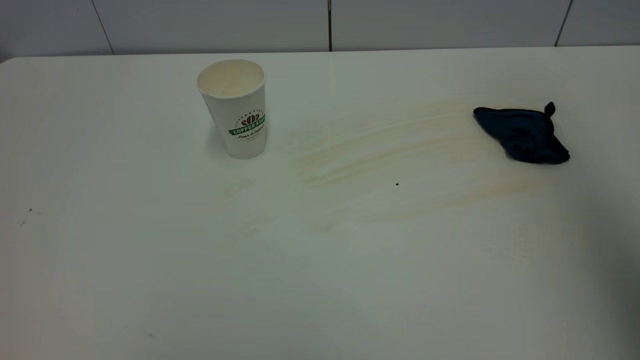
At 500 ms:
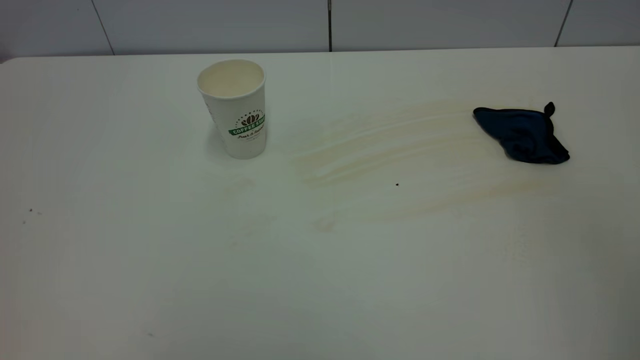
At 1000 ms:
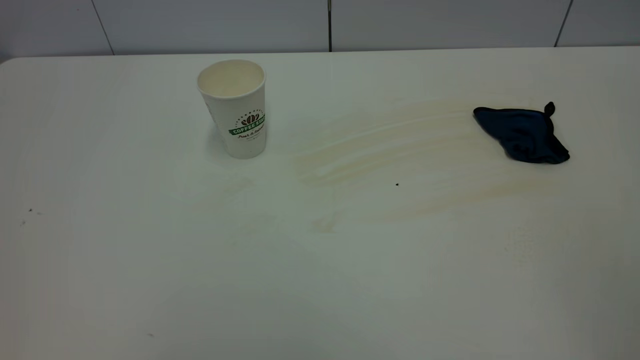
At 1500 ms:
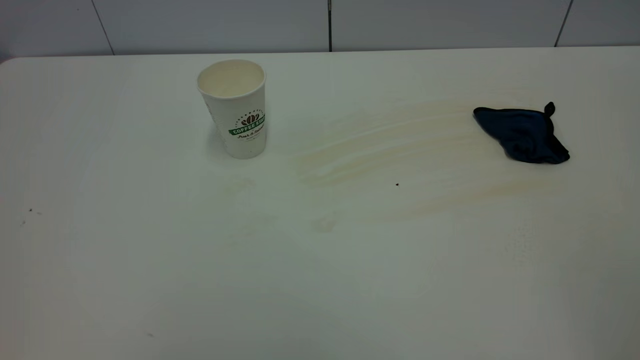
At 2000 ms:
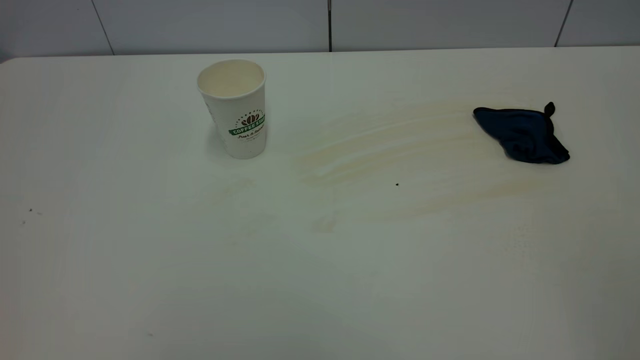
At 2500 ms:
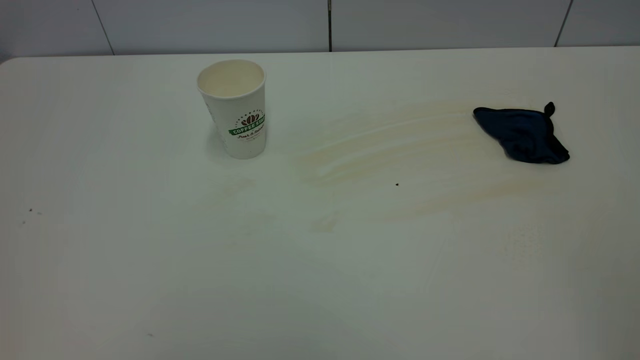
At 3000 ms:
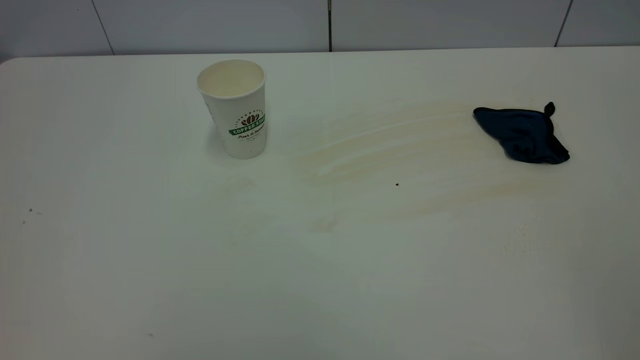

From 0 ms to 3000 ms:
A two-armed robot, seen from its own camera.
Task of the whole recording: the left gripper pick up the fallen cup and place it upright, the right gripper grasp the blue rag and wipe the tea stain on the table, the right gripper put the blue rag back in its original position.
From 0 ms to 1500 ms: The right gripper is displaced backward and downward by about 25 cm.

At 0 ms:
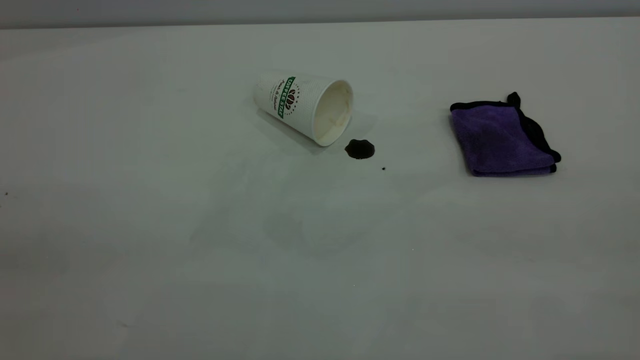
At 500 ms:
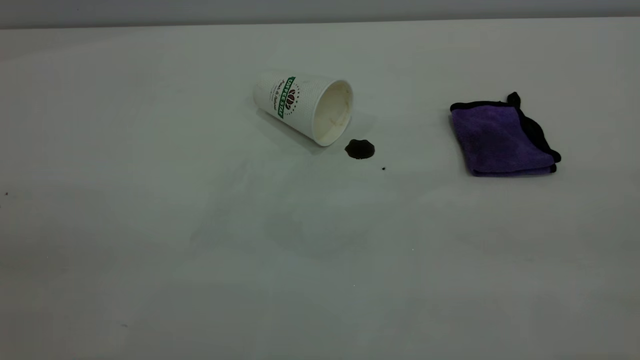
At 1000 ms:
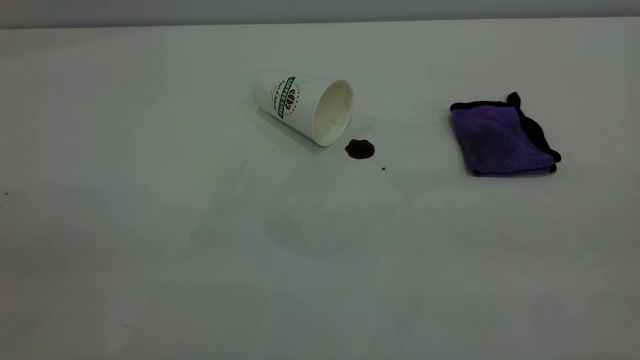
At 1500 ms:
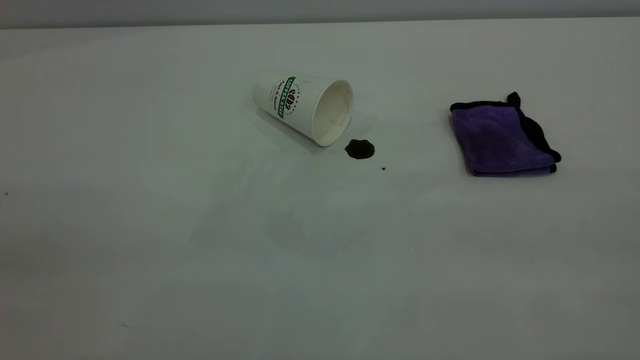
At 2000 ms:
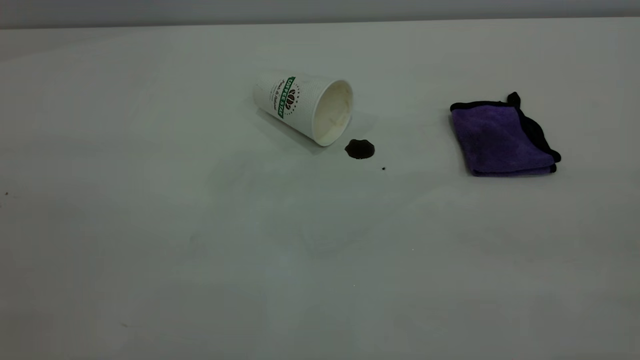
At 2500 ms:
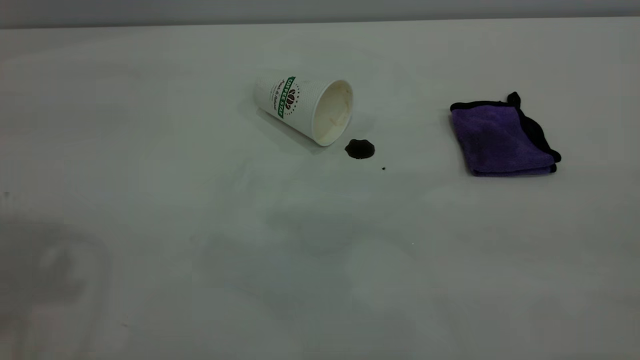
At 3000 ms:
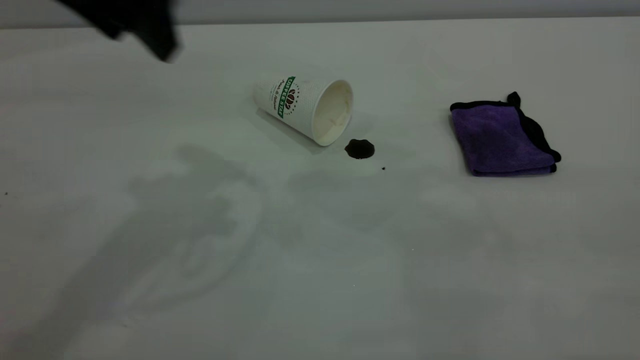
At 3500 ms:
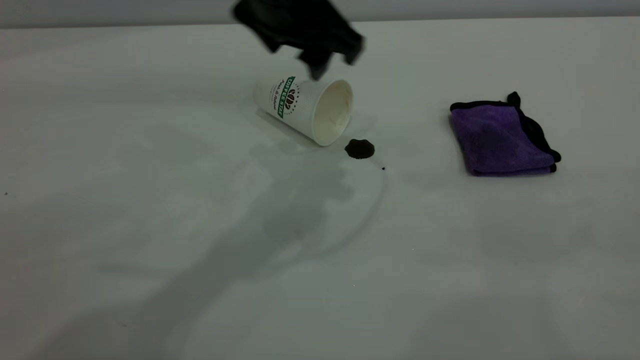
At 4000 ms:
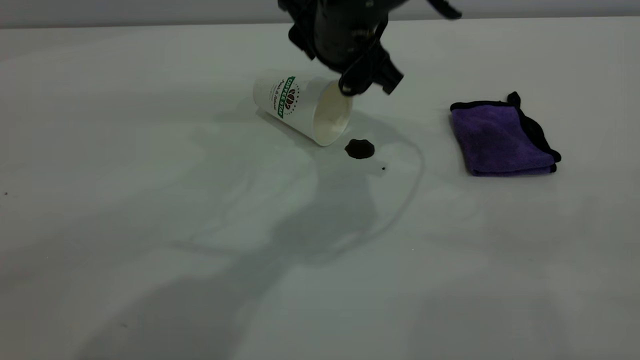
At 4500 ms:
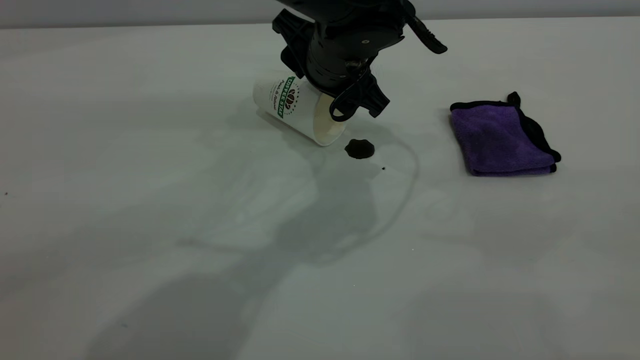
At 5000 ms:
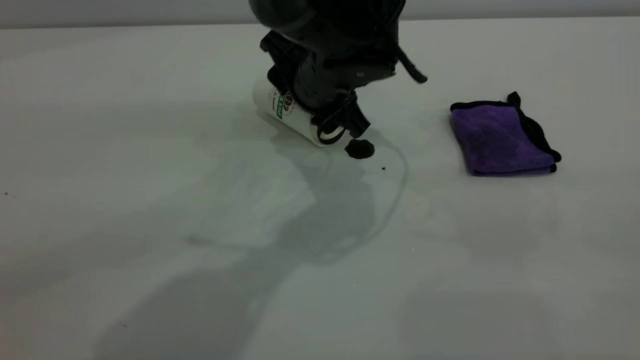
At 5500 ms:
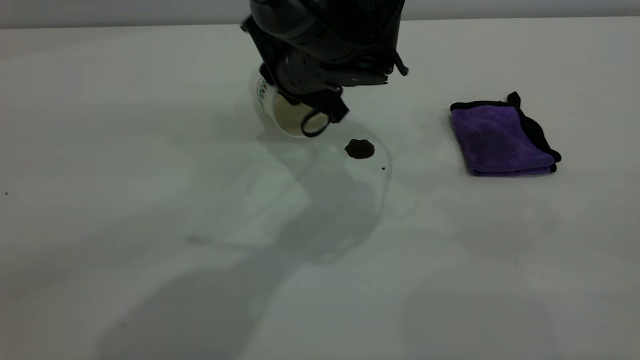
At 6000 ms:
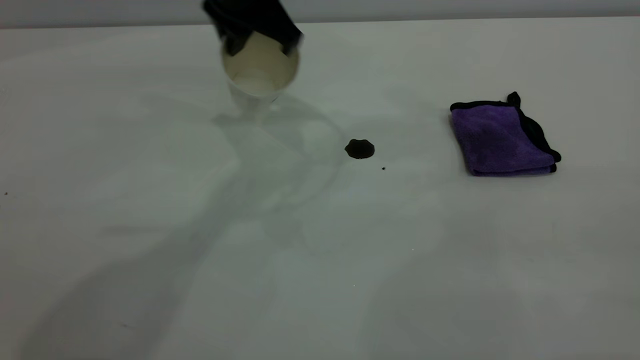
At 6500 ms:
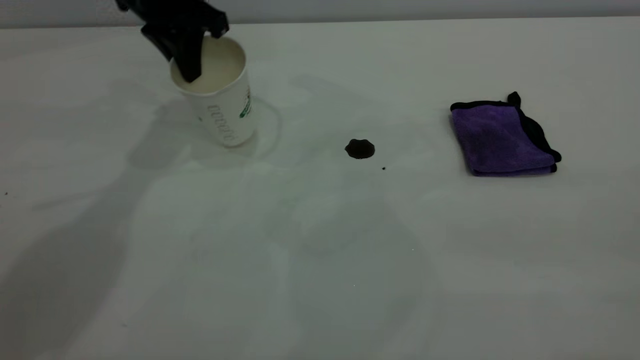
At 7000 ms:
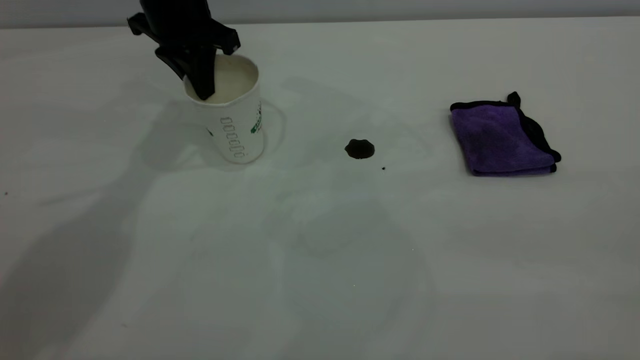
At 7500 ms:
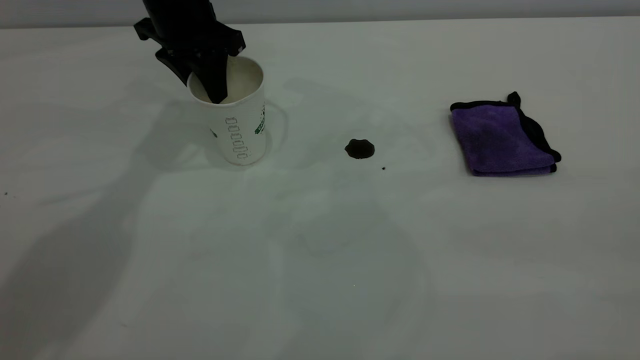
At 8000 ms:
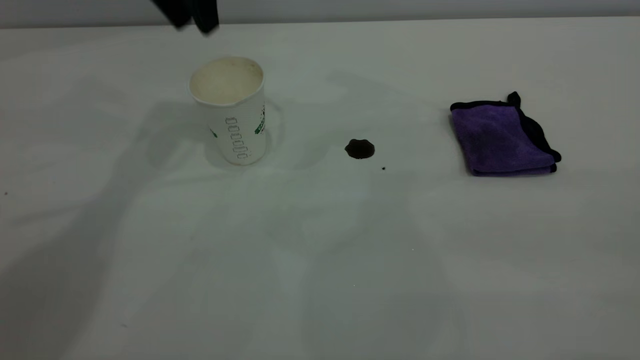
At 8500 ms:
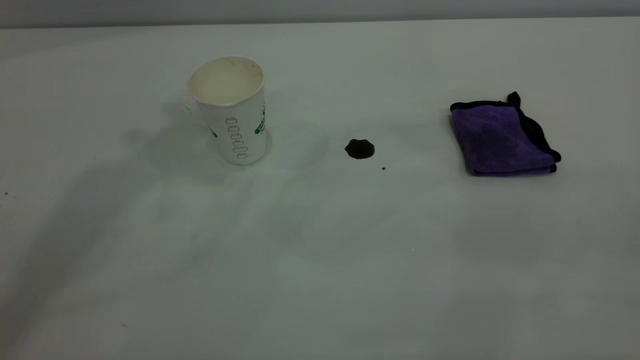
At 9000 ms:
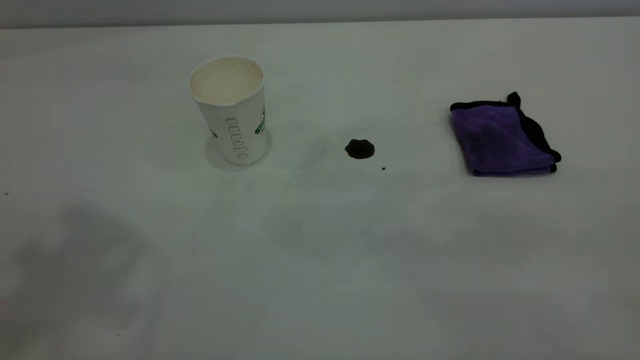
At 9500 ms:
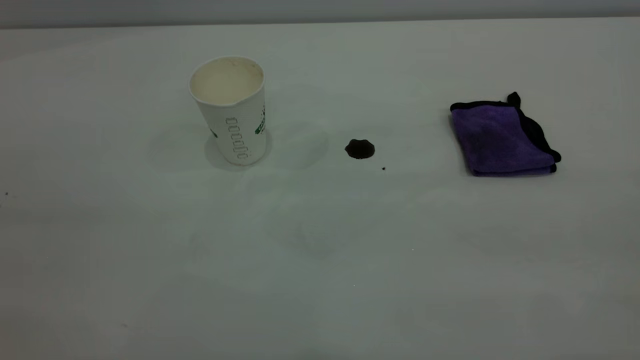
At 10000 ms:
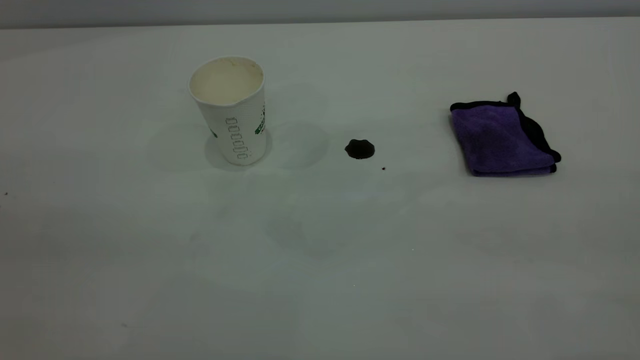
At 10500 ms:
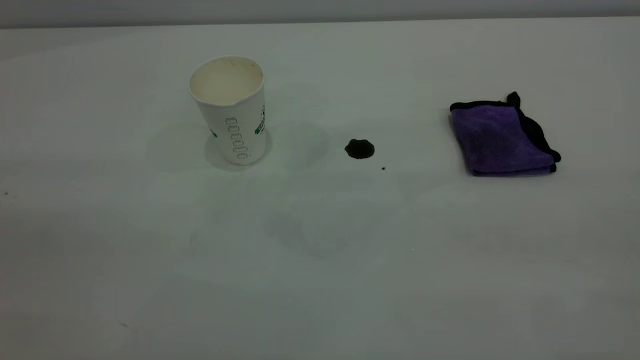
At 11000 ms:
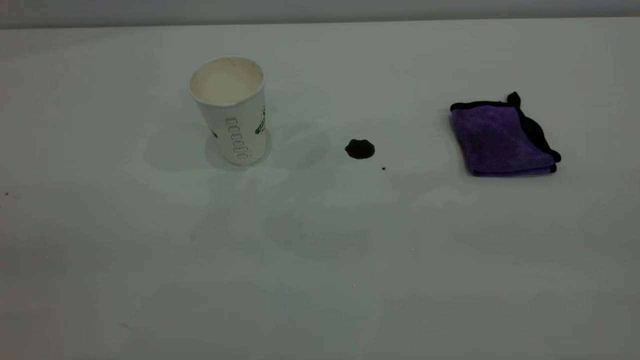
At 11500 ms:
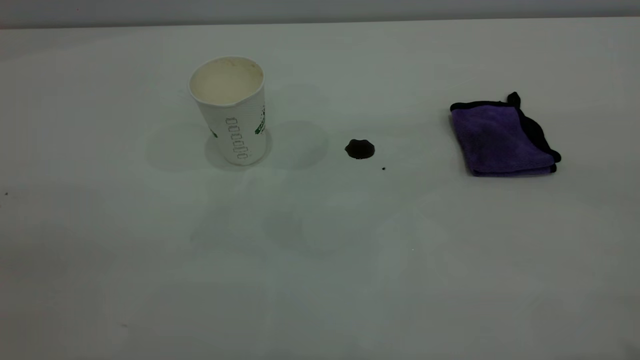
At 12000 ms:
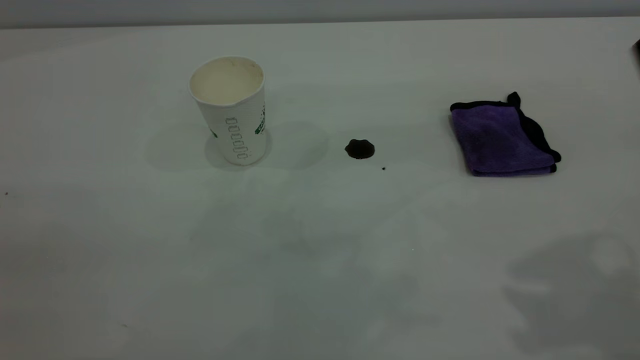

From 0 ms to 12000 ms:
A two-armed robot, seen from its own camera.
Task of the whole recording: the left gripper pick up the fallen cup and place it upright, the right gripper grasp the purple rag and wipe the coffee stain on the table, the right gripper put the purple rag back in its original position.
Step, from 0 ms to 7500 ms: Stand the paper cup upright.
From 2000 ms to 4000 ms: The left gripper travels to the right, forward and downward by roughly 50 cm.
From 4000 ms to 6000 ms: The left gripper heads to the left and upward, covering about 10 cm, and closes up.
From 6000 ms to 8000 ms: The left gripper travels to the left and upward by about 10 cm, and opens.
From 8000 ms to 10000 ms: The left gripper heads backward, covering approximately 40 cm.

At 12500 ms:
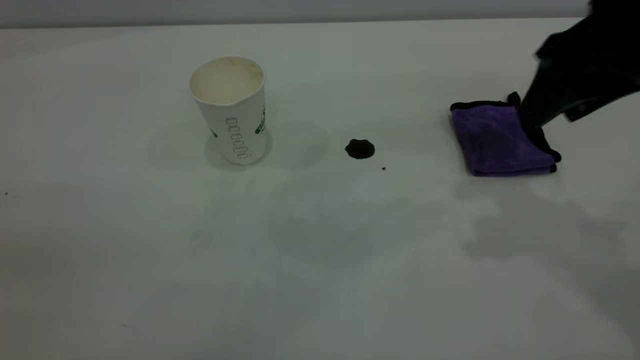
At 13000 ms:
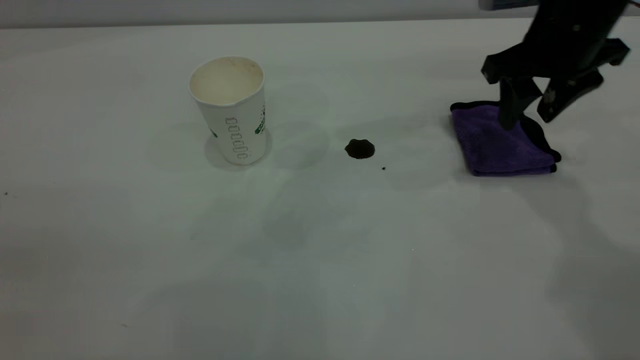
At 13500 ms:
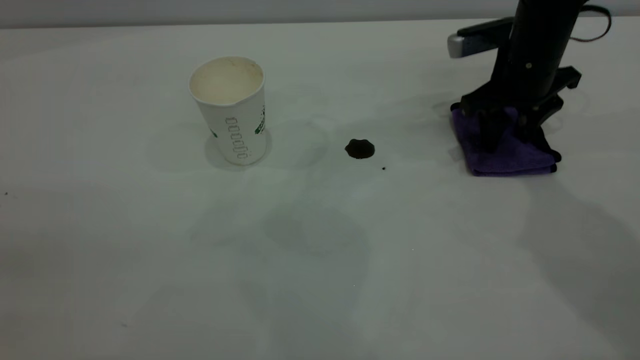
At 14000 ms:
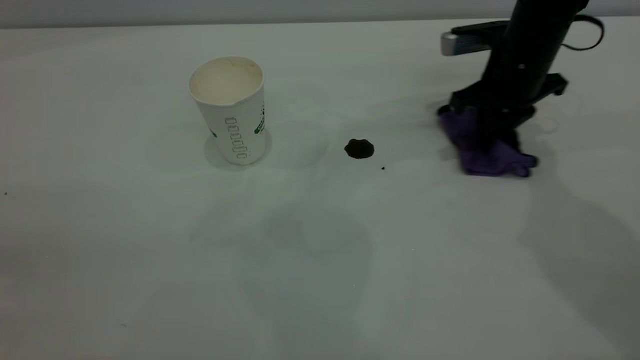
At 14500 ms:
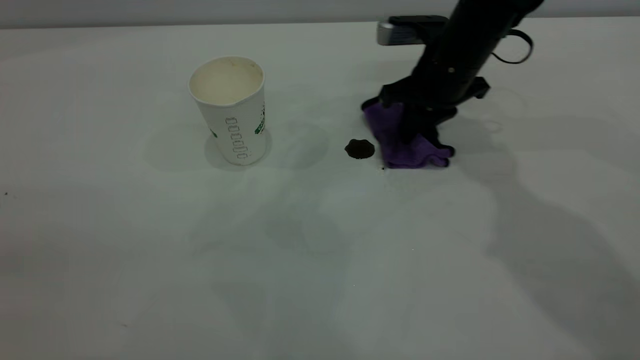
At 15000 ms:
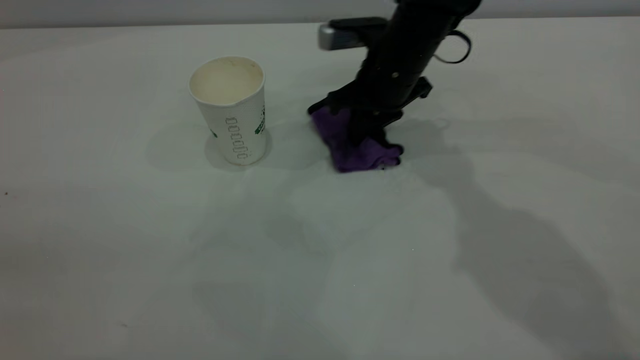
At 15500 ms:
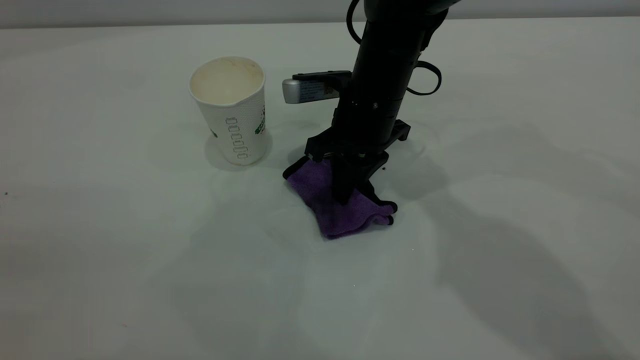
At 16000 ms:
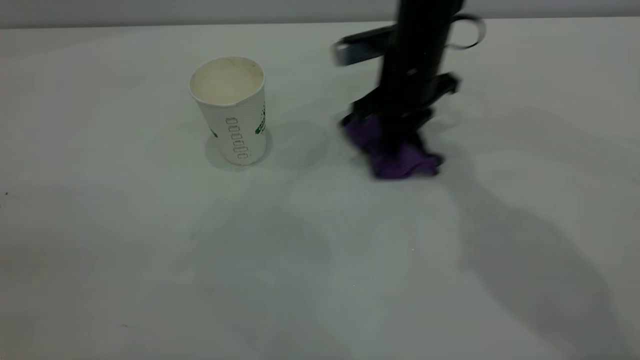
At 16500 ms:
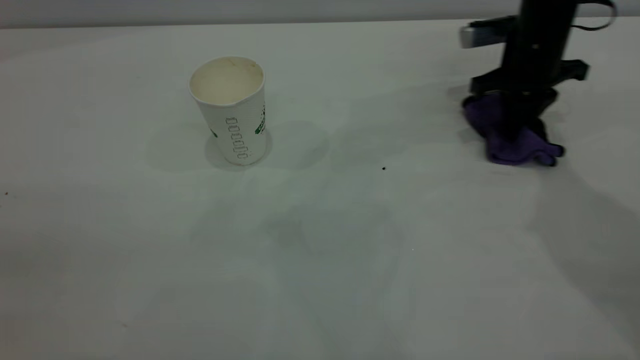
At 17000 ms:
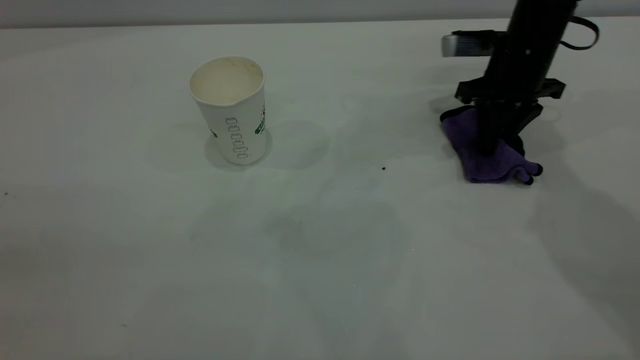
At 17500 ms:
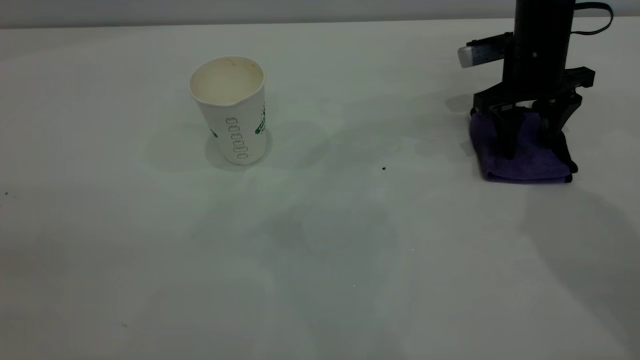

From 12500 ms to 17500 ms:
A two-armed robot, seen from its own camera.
Task of the whole recording: the left gripper pick up the fallen cup and place it upright, the right gripper grasp the purple rag and wipe the coffee stain on the table, the right gripper put the purple rag back in its original position.
From 12500 ms to 15000 ms: The right gripper goes about 25 cm to the left, downward and forward, and closes up.
From 15000 ms to 17500 ms: The right gripper heads to the right, covering about 15 cm, and opens its fingers.
